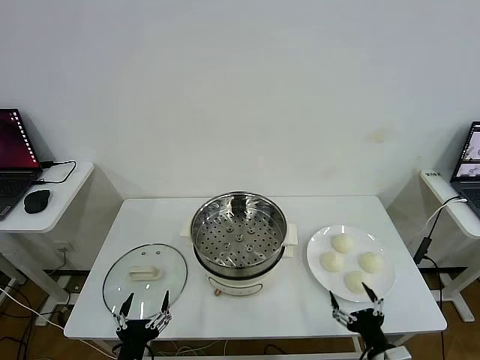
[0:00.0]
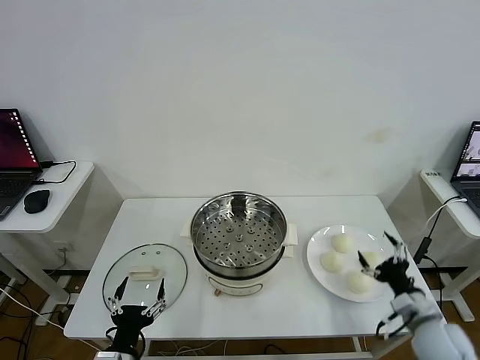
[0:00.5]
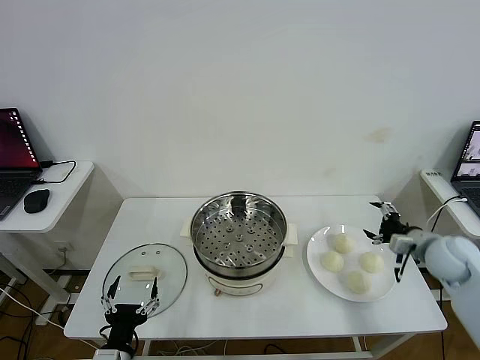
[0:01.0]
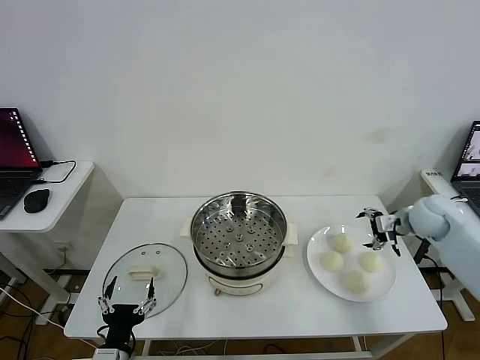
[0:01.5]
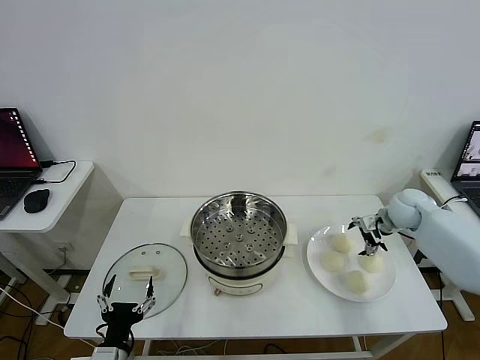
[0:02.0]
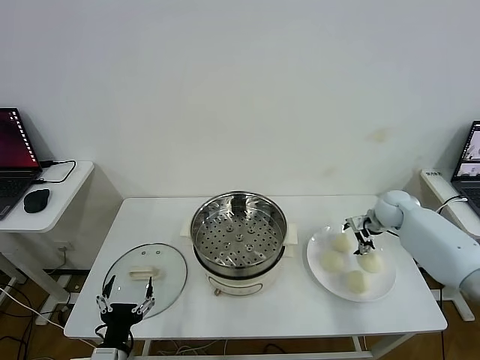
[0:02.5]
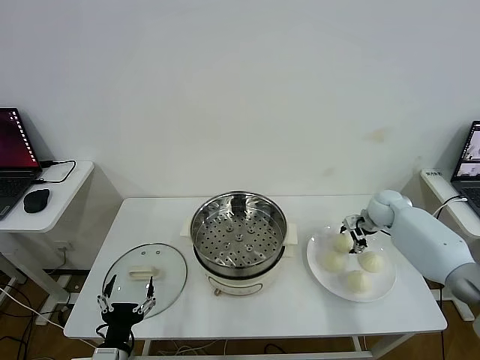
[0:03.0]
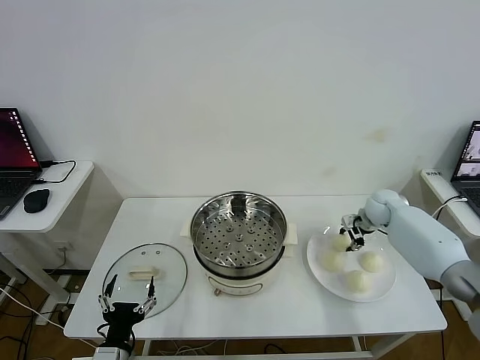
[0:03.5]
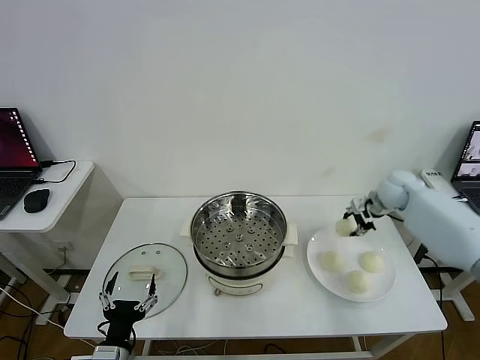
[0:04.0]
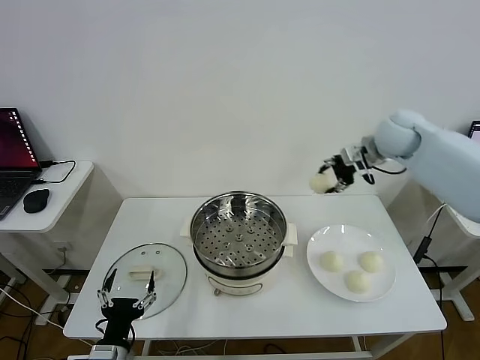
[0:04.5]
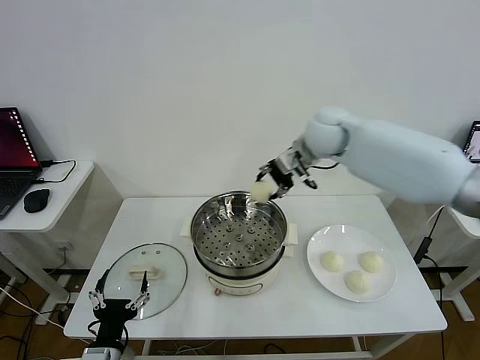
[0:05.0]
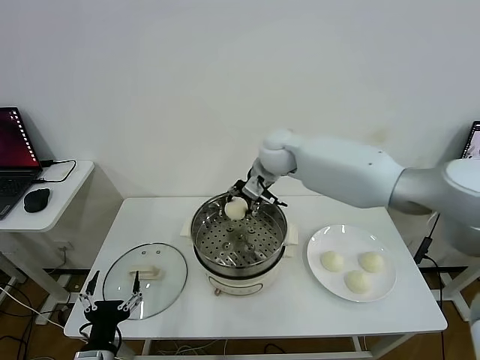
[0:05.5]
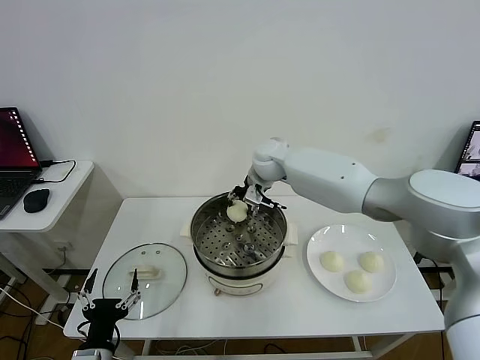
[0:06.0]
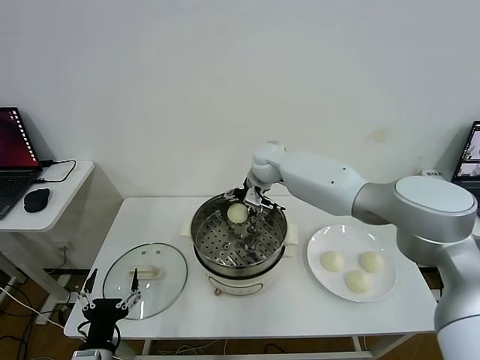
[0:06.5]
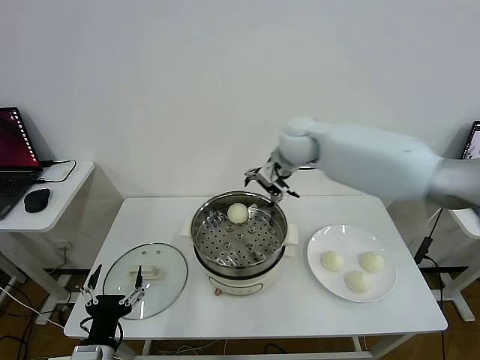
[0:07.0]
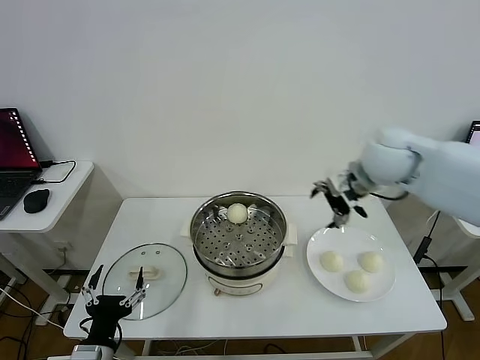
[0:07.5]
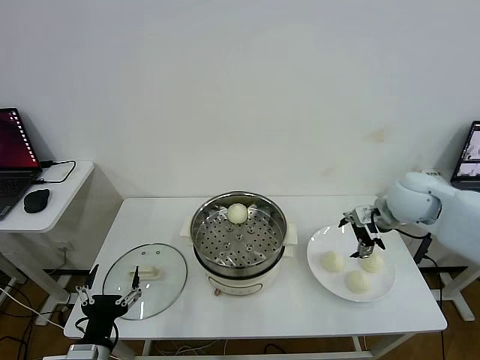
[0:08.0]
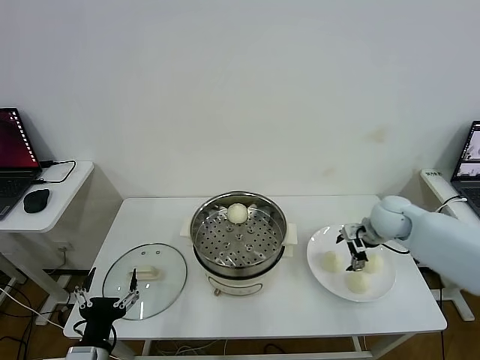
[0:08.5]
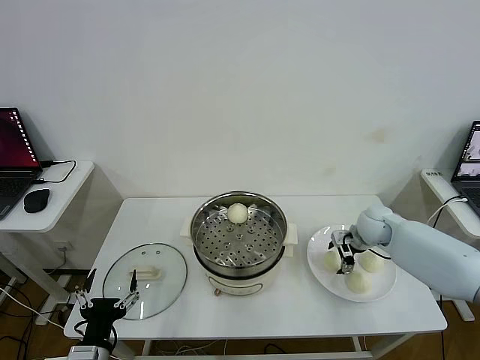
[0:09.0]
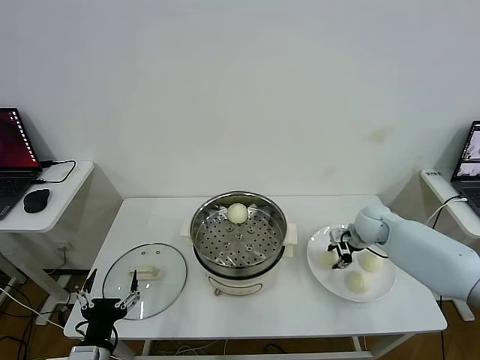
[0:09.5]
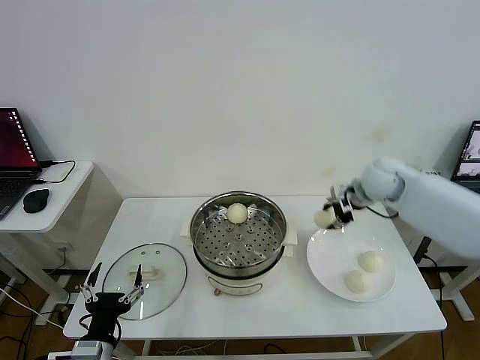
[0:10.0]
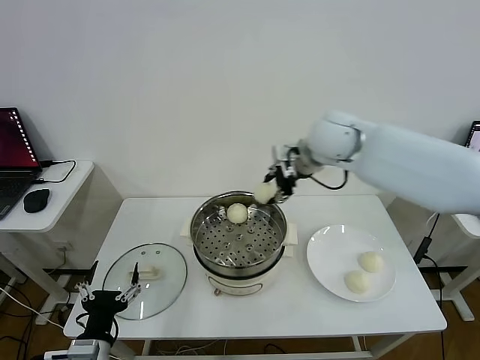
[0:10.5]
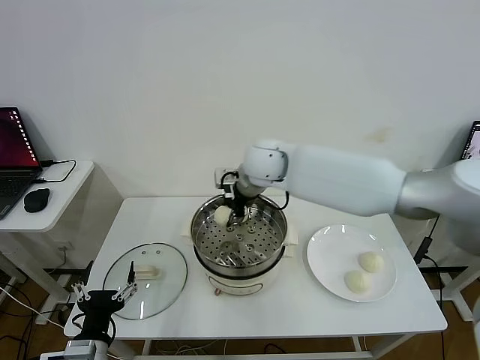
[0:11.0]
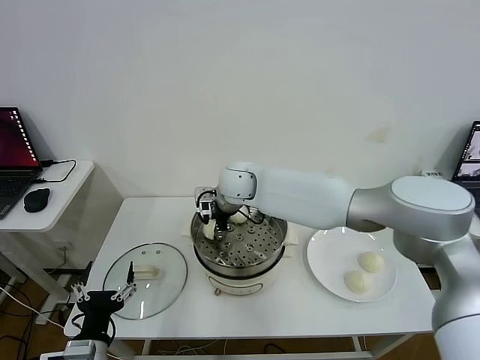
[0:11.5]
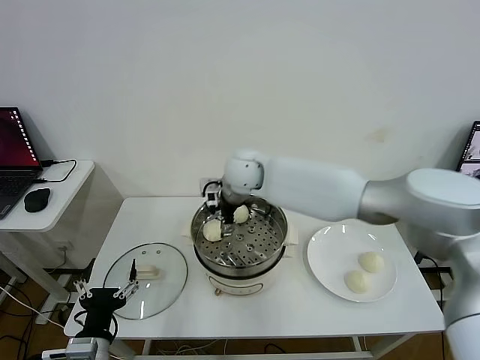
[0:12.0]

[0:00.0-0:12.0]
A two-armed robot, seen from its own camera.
Step, 0:00.0 to 0:03.5: Grasp the baozi in the plate with right gripper.
Step, 0:04.0 to 0:06.5: Place the baozi on the steamer with right gripper.
Step, 0:07.0 to 0:09.0: Grasp the baozi in the plate with right gripper.
Step, 0:09.5 to 0:12.0: Place the baozi on the steamer with right gripper.
0:02.0 to 0:04.0: The right gripper shifts some 5 cm upward, and closes its fingers.
0:04.0 to 0:06.0: The right gripper is displaced to the left by roughly 35 cm.
0:06.0 to 0:08.0: The right gripper is displaced to the right and backward by approximately 30 cm, and opens up.
0:08.0 to 0:10.0: The right gripper is displaced forward by some 5 cm, travels downward and back again, about 15 cm each way, and closes up.
0:10.0 to 0:12.0: The right gripper heads to the left, covering approximately 30 cm, and opens its fingers.

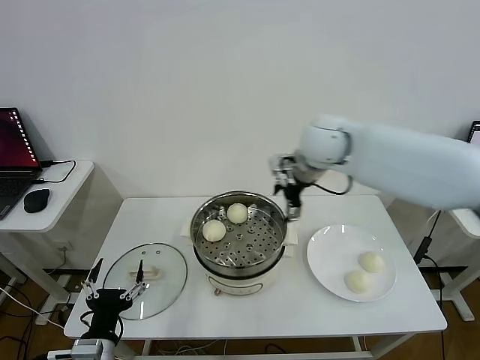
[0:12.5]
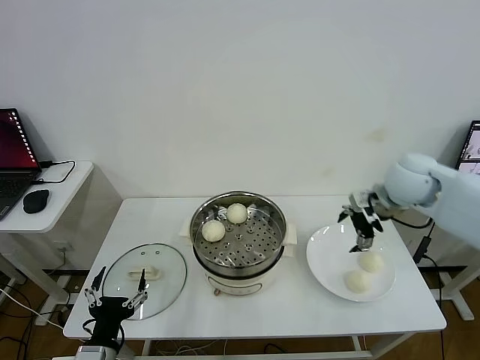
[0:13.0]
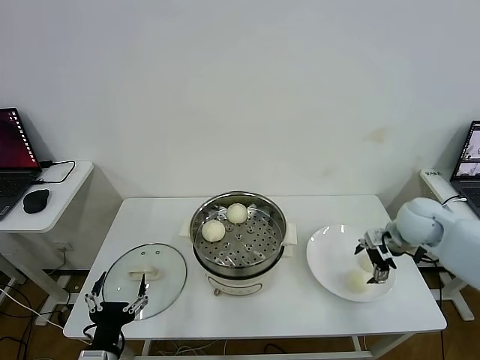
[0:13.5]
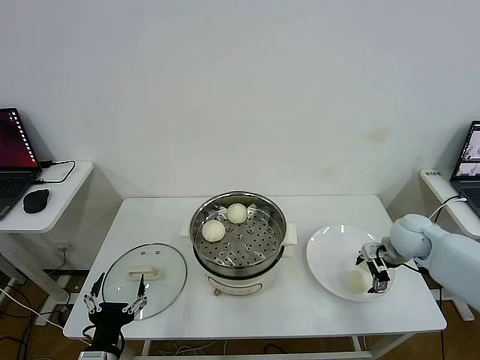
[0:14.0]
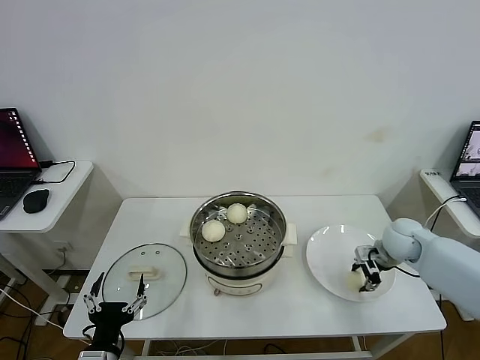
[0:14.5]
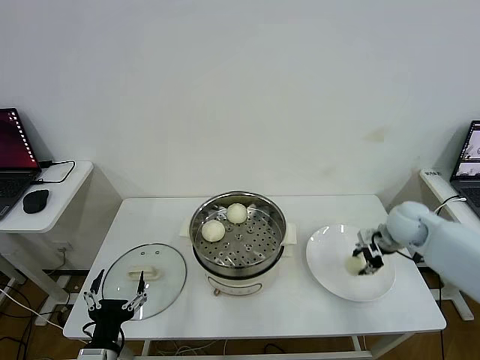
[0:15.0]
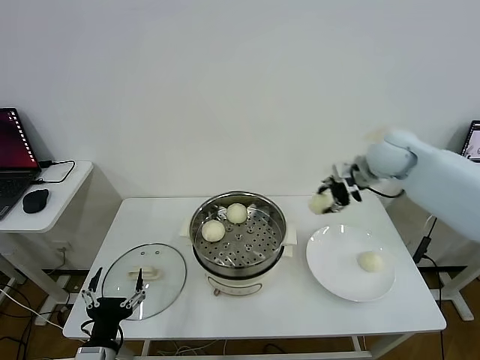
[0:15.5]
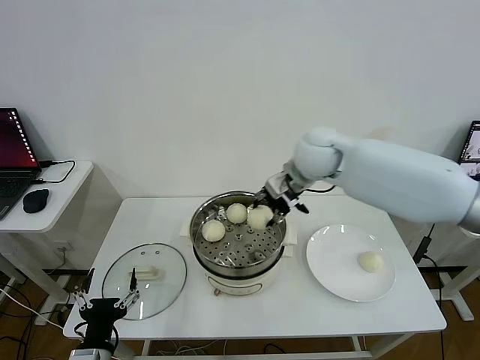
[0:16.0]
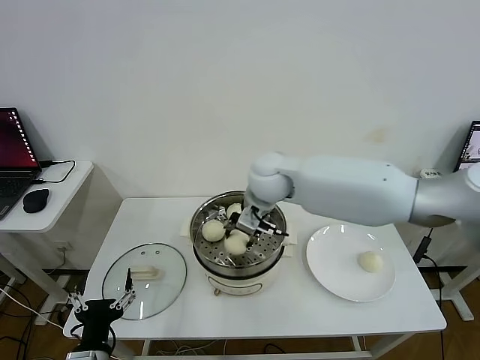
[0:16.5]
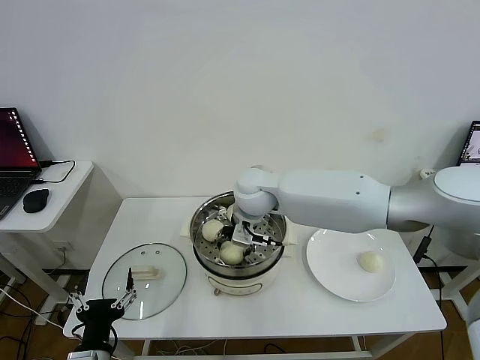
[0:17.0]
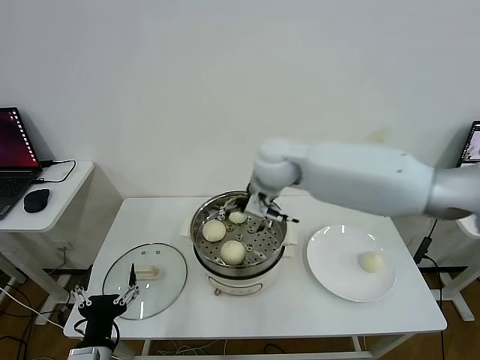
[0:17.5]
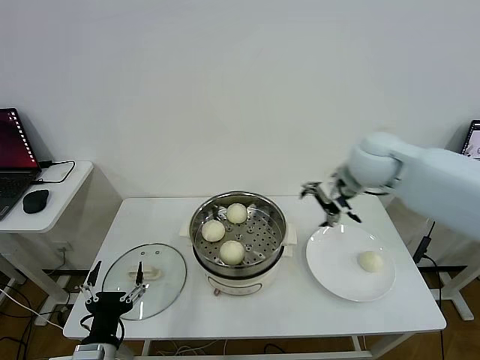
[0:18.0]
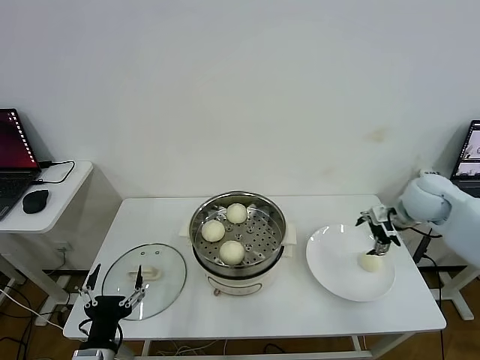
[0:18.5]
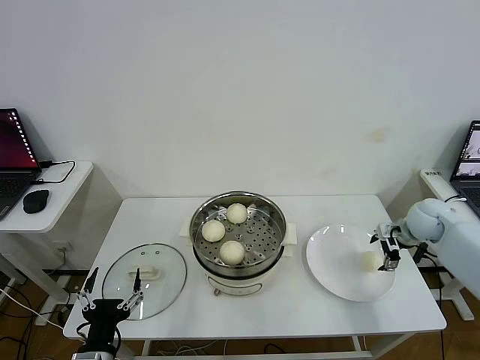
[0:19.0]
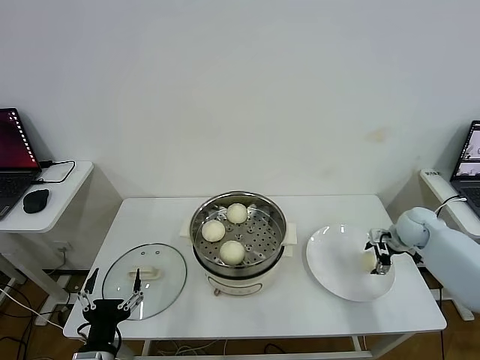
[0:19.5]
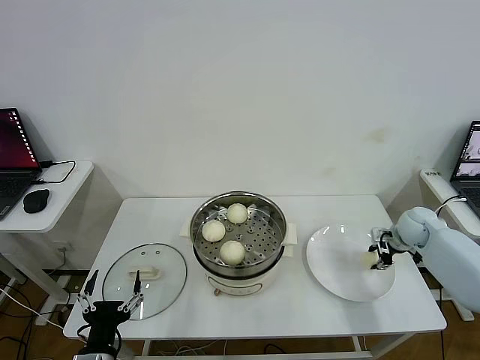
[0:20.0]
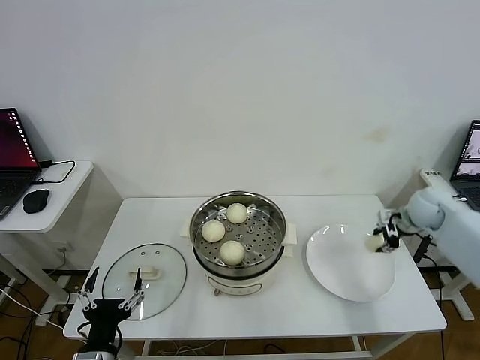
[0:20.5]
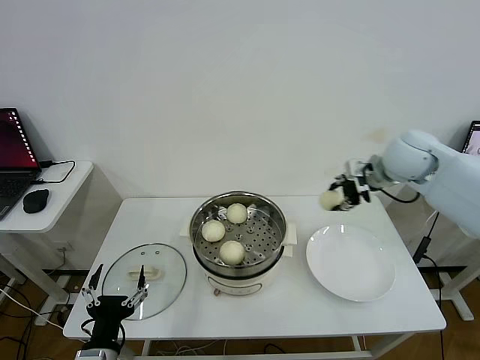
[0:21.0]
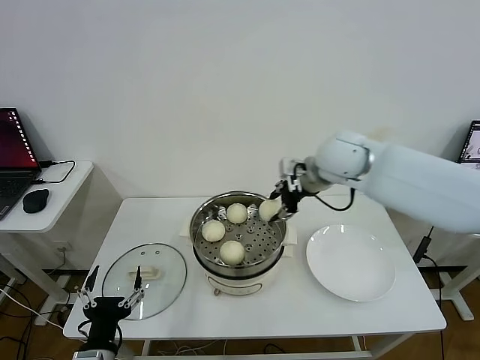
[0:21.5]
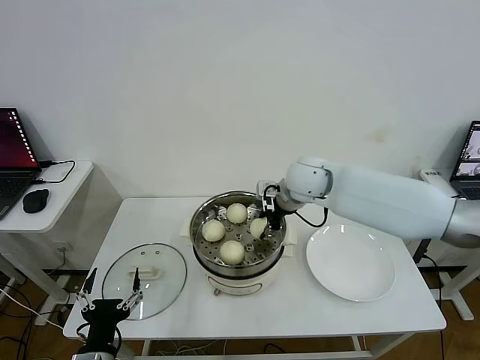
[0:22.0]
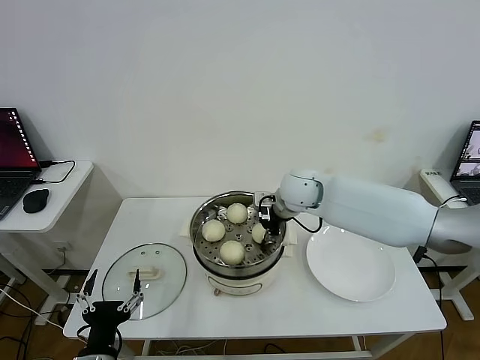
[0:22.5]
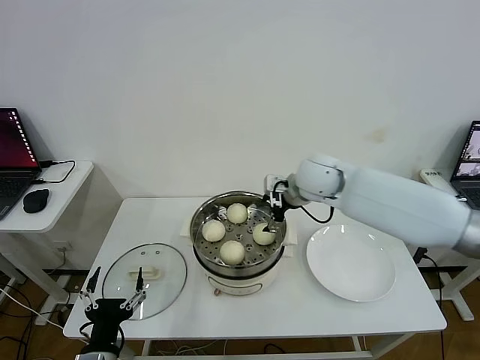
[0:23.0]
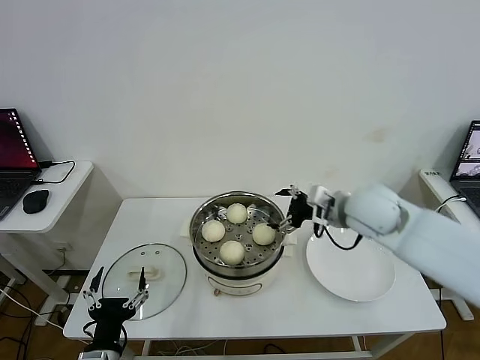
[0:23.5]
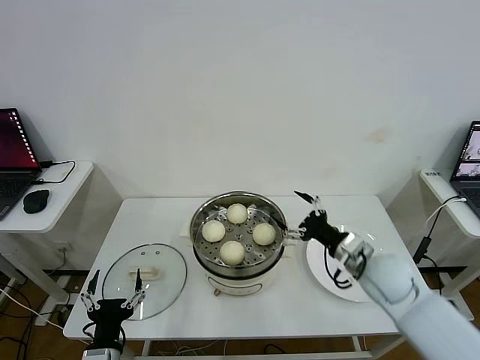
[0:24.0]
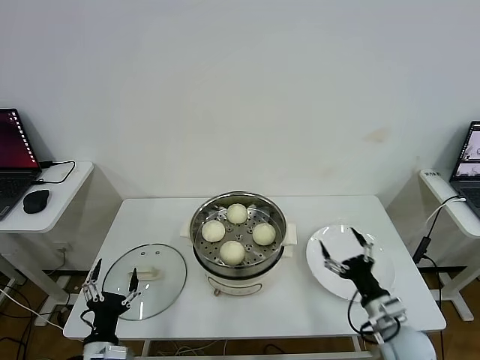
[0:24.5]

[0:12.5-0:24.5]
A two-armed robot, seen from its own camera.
Step, 0:12.5 to 0:14.5: Grasp the baozi in the plate with right gripper.
Step, 0:15.0 to 0:17.0: Place the baozi on the steamer with right gripper.
Step, 0:17.5 to 0:20.0: Grasp the baozi in the plate with right gripper.
Step, 0:20.5 to 0:22.5: Place the baozi on the steamer with right gripper.
0:12.5 to 0:14.5: The right gripper goes roughly 30 cm downward and to the right, and closes.
0:14.5 to 0:16.5: The right gripper moves to the left and upward, about 35 cm.
0:16.5 to 0:18.5: The right gripper is displaced to the right by roughly 35 cm, and opens its fingers.
0:18.5 to 0:20.5: The right gripper goes roughly 10 cm downward and to the right, and closes.
0:20.5 to 0:22.5: The right gripper travels to the left by approximately 30 cm.
0:22.5 to 0:24.5: The right gripper heads backward, to the right and downward, covering roughly 40 cm, and opens its fingers. The left gripper shifts approximately 5 cm downward.

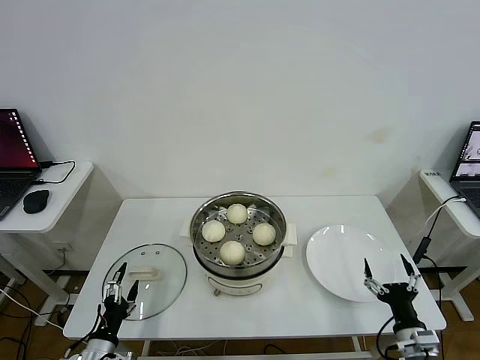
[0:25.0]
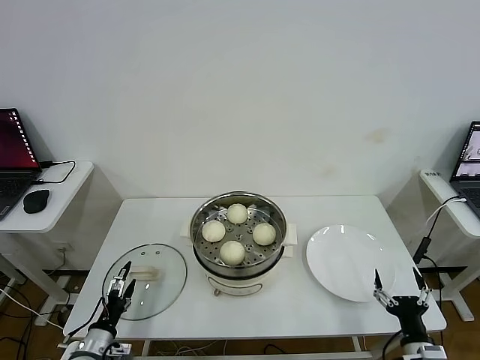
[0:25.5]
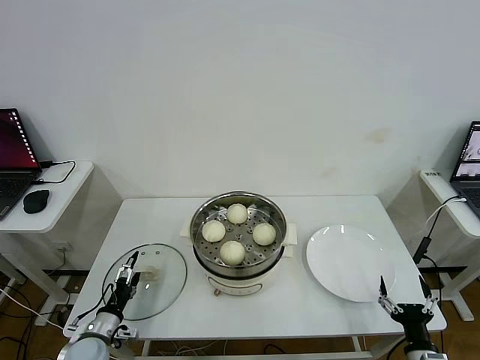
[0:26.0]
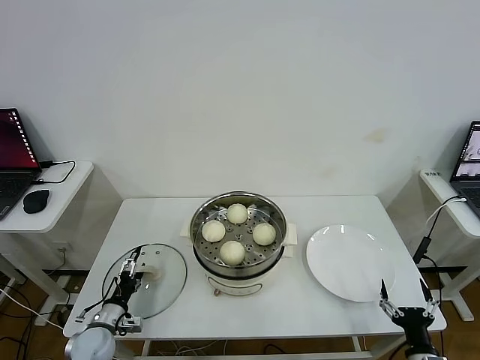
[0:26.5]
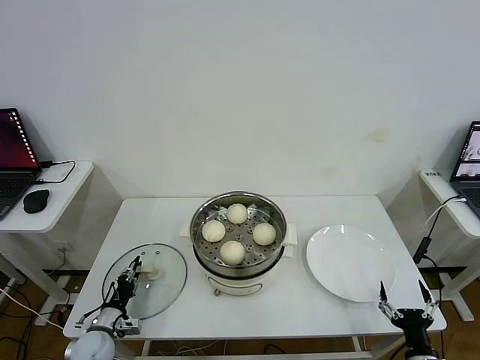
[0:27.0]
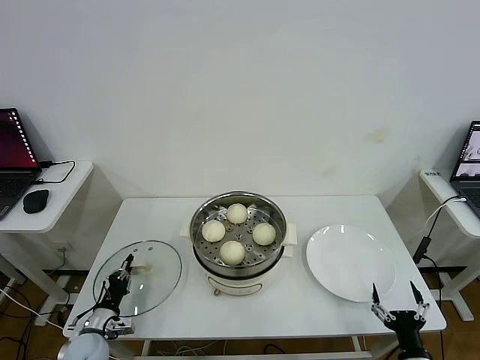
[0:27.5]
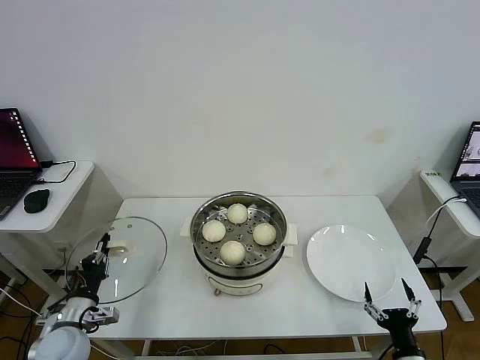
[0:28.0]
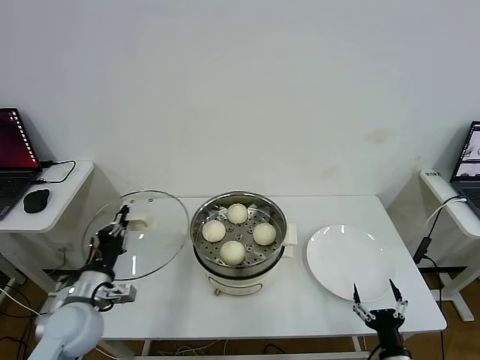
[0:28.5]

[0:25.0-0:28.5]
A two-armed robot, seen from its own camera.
Step, 0:25.0 to 0:27.5: Grasp the pot lid with left gripper.
0:25.0 to 0:27.0: The left gripper heads forward and downward, covering about 10 cm, and closes, while the right gripper travels backward by about 5 cm.
0:27.0 to 0:28.5: The left gripper travels upward by roughly 20 cm, and closes its fingers.
